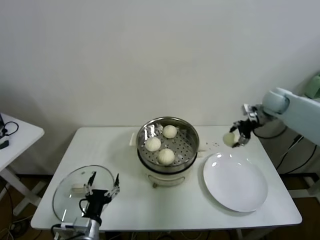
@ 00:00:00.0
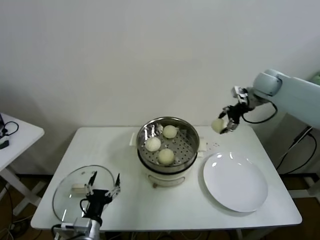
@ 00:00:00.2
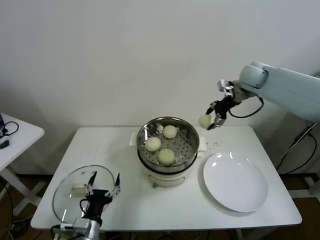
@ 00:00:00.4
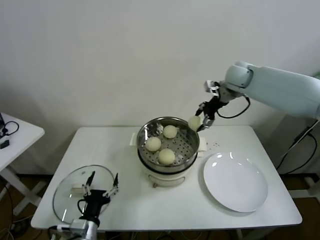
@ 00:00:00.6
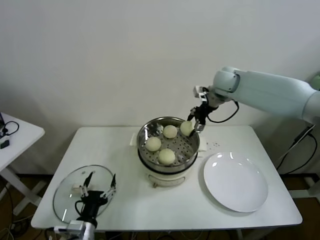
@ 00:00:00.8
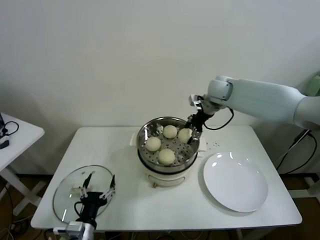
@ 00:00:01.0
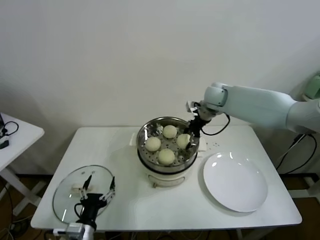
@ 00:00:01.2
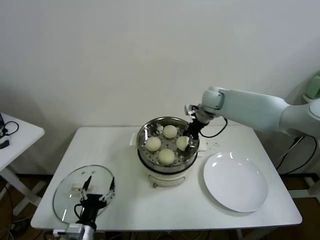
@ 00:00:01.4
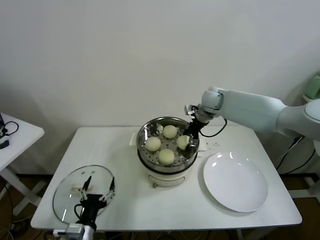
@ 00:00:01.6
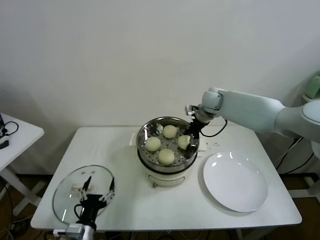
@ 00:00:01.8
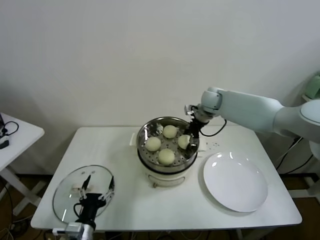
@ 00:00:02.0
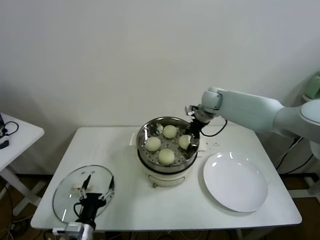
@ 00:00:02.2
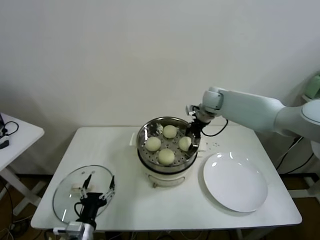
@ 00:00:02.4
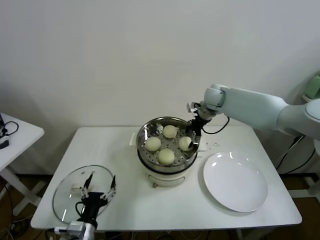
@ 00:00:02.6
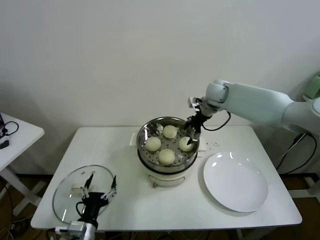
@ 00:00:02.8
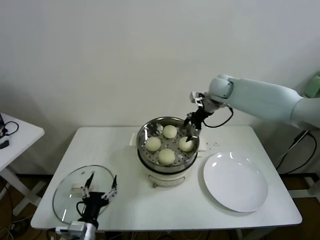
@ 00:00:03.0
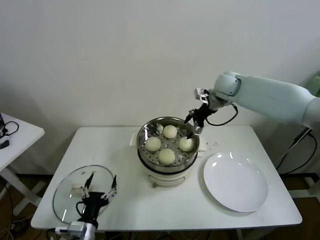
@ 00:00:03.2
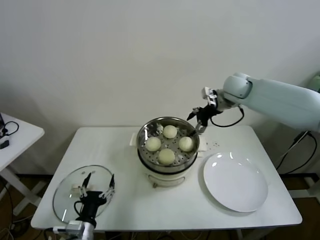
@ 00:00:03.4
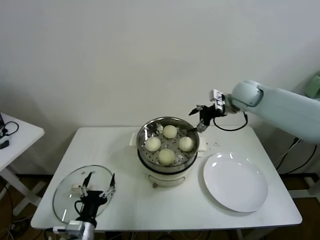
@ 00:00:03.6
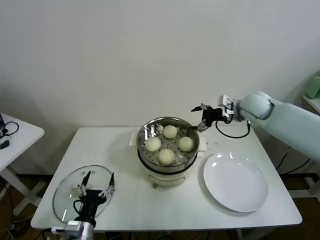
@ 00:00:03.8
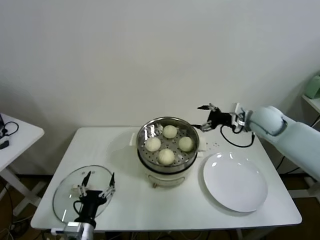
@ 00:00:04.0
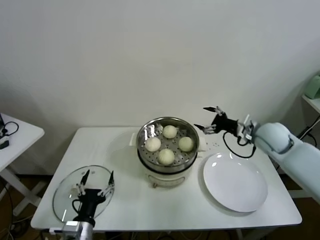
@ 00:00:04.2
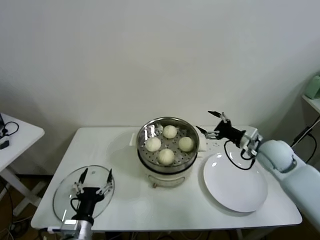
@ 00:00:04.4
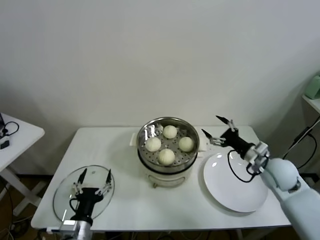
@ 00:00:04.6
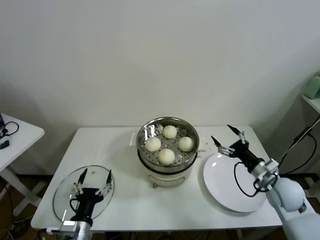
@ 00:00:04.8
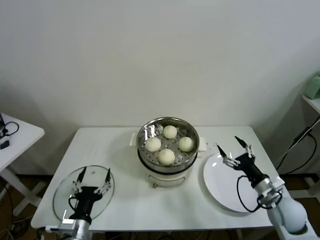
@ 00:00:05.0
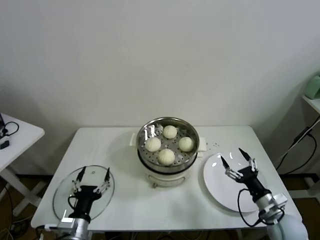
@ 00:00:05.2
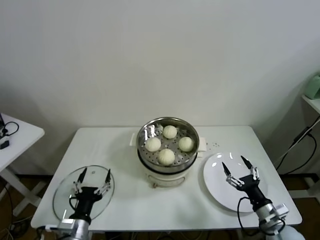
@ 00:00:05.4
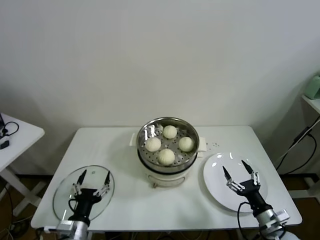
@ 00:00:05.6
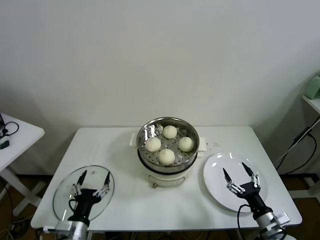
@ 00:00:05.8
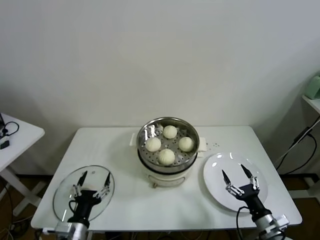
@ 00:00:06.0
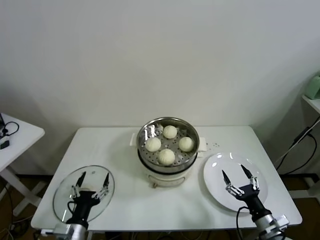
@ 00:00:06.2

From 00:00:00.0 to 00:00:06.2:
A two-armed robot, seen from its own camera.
Task of the whole recording: take steamed baozi put them in steamer.
Step, from 00:00:00.0 to 00:00:02.6: Place the baozi on the steamer with right gripper.
From 00:00:00.0 to 00:00:01.6: The right gripper travels to the left by some 20 cm.
From 00:00:01.6 to 00:00:03.2: The right gripper travels upward by approximately 5 cm, and opens.
From 00:00:03.2 to 00:00:04.6: The right gripper moves backward, downward and to the right, approximately 30 cm.
From 00:00:04.6 to 00:00:06.2: The right gripper moves backward and downward, roughly 25 cm.
